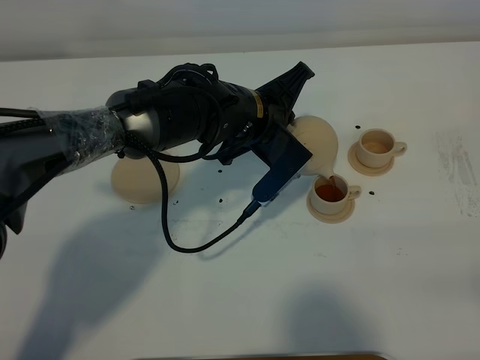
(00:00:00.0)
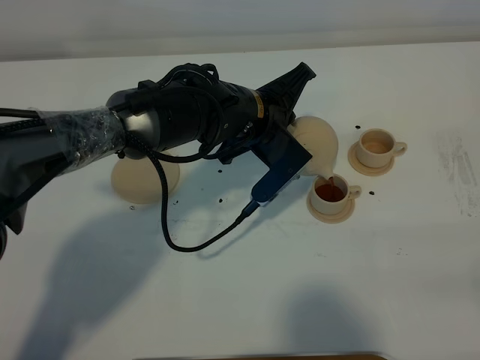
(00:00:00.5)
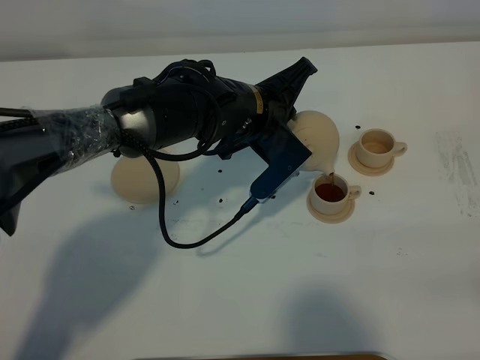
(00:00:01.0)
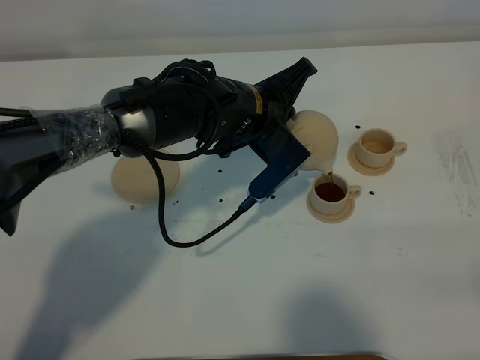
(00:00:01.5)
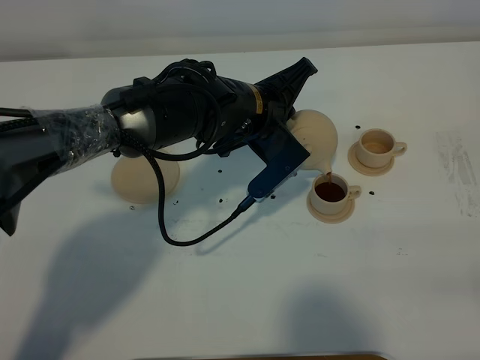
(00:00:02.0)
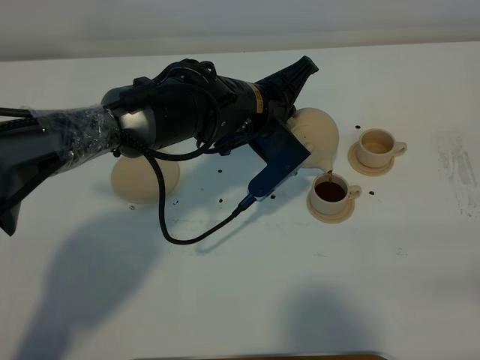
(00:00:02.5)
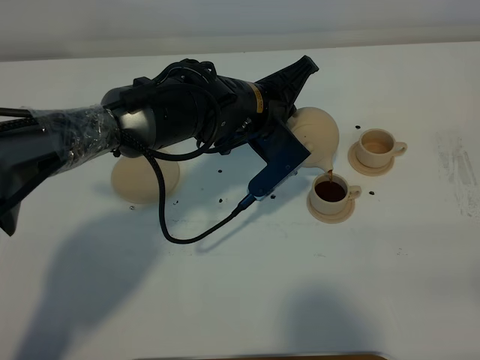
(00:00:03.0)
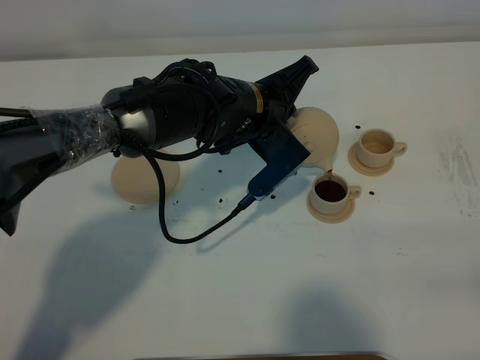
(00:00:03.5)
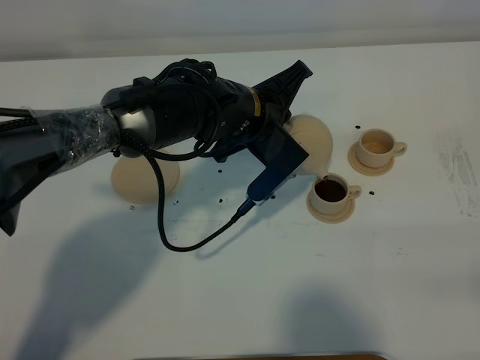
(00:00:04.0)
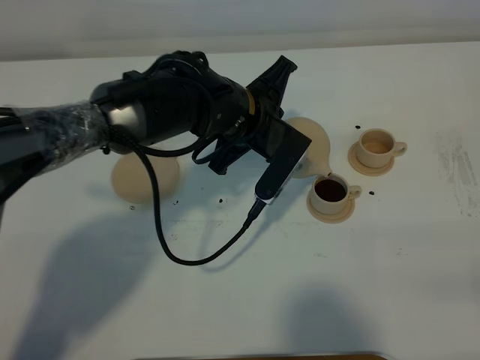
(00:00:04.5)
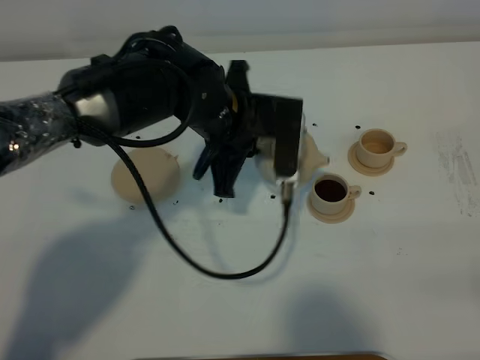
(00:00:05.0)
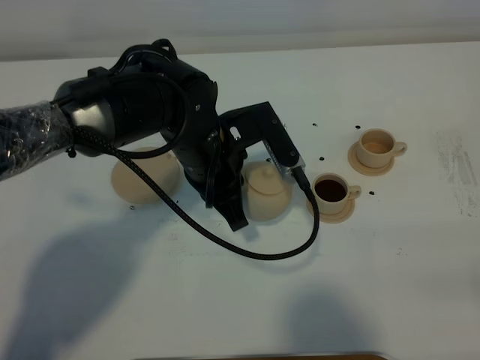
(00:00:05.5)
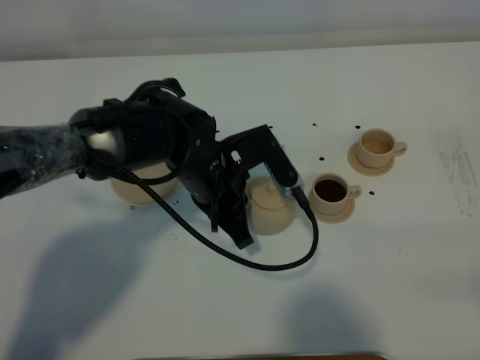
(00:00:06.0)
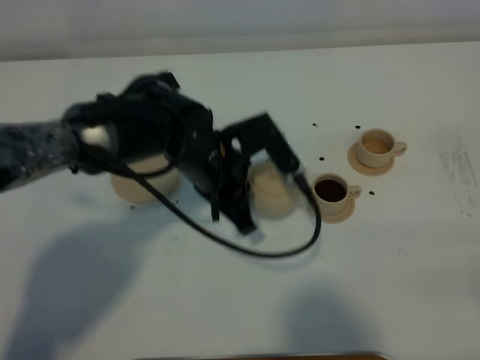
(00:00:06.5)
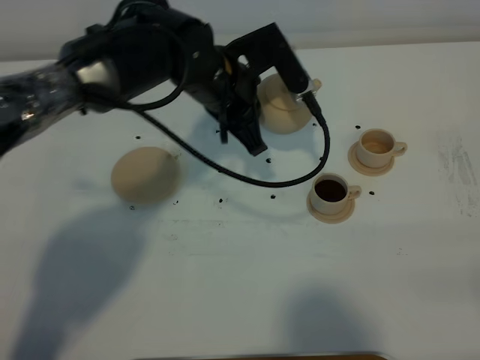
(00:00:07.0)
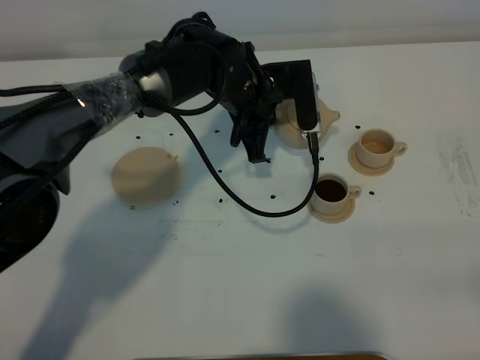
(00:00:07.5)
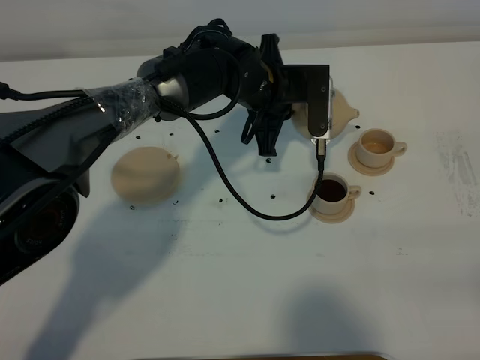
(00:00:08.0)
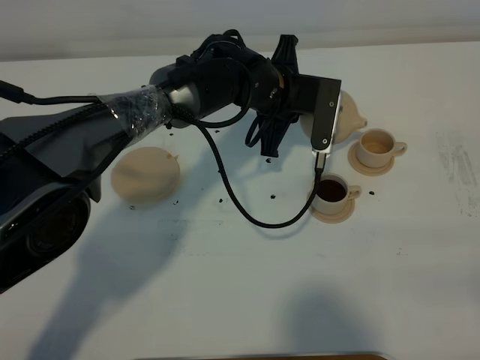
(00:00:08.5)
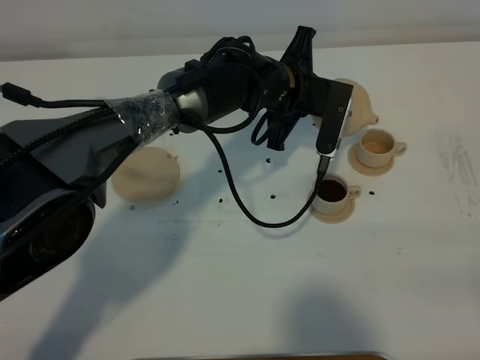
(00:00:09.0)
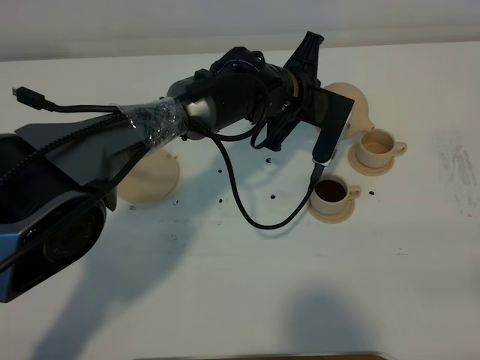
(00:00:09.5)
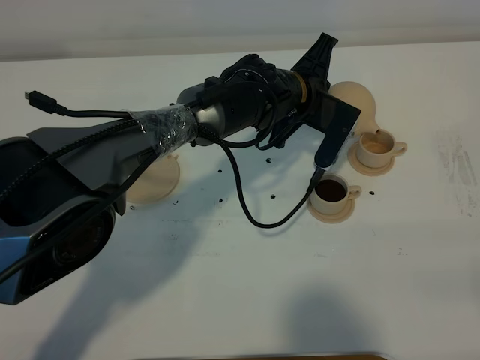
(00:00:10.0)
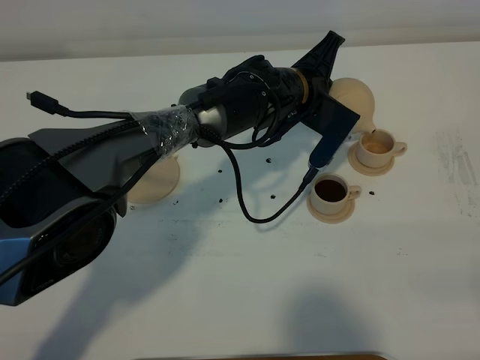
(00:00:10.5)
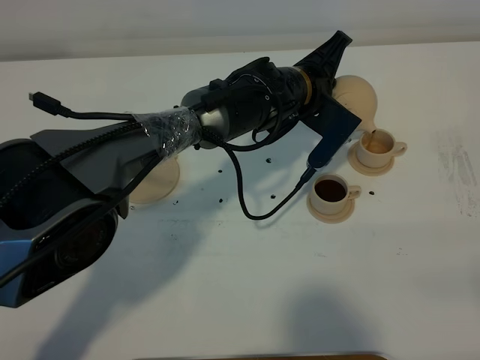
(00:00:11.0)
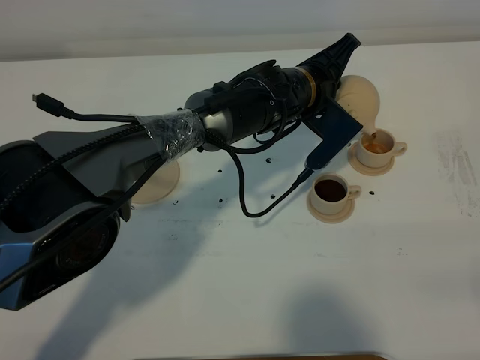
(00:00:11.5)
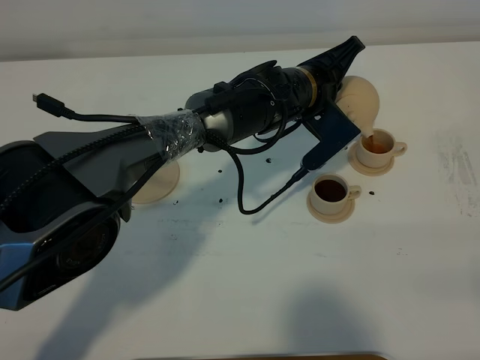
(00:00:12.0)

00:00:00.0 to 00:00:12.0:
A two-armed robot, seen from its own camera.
Task of the whole recording: grasp the brown teapot and pour the tea into the two brown teacups one by one, put the brown teapot back in its original place.
Step, 00:00:00.0 to 00:00:05.0: Pour tea into the teacup with the left gripper.
00:00:00.0 to 00:00:02.0: Neither gripper changes place.
00:00:02.0 to 00:00:04.0: Both grippers stay about where they are.
00:00:04.0 to 00:00:06.0: The left gripper goes about 5 cm backward.
00:00:06.0 to 00:00:08.0: The left gripper goes roughly 15 cm forward and to the right.

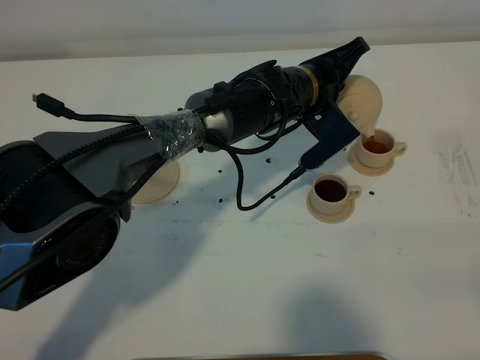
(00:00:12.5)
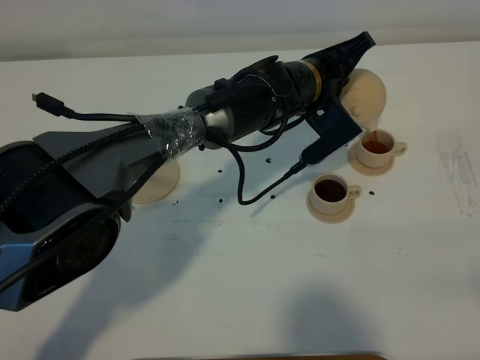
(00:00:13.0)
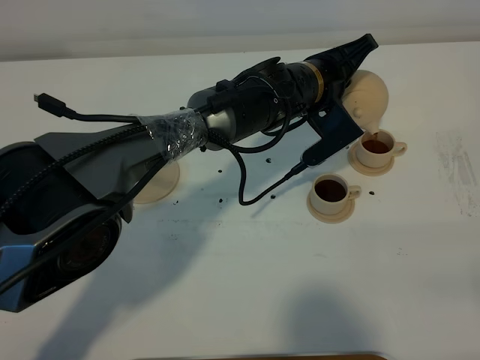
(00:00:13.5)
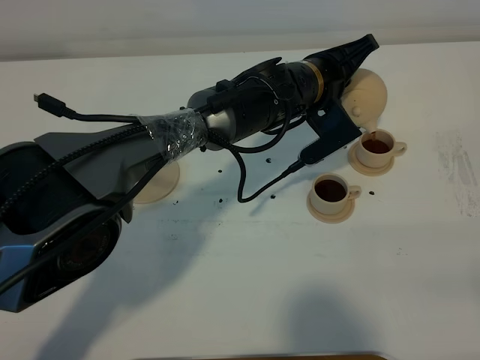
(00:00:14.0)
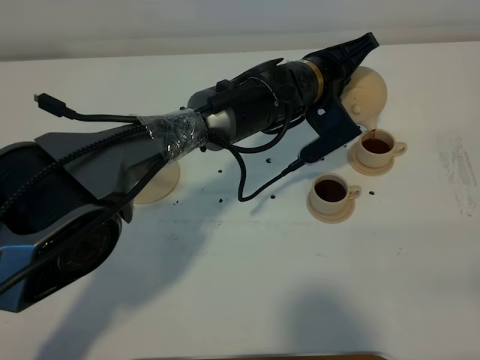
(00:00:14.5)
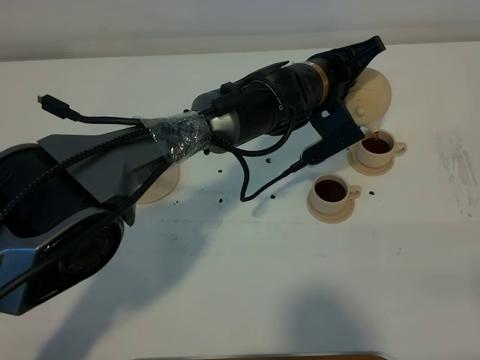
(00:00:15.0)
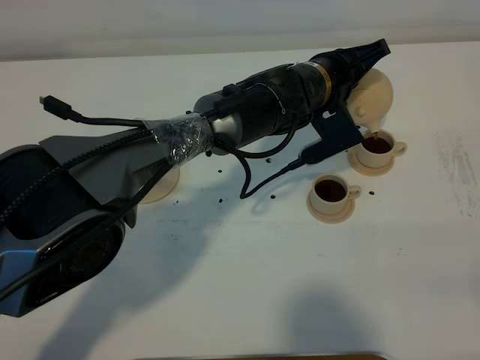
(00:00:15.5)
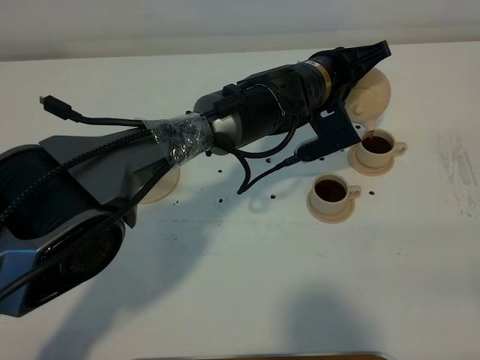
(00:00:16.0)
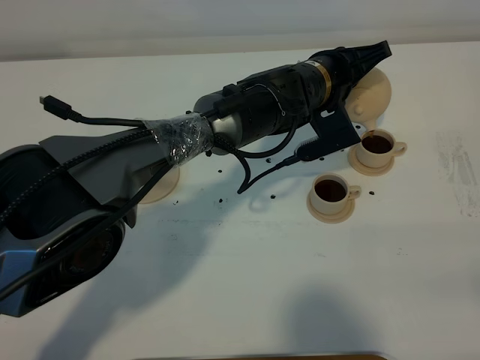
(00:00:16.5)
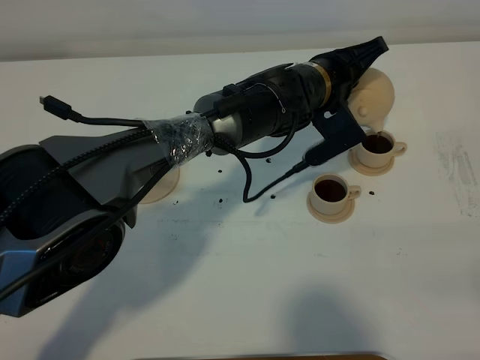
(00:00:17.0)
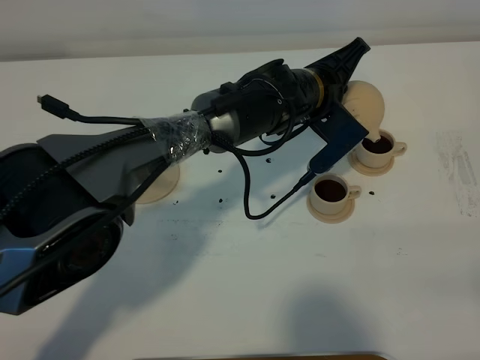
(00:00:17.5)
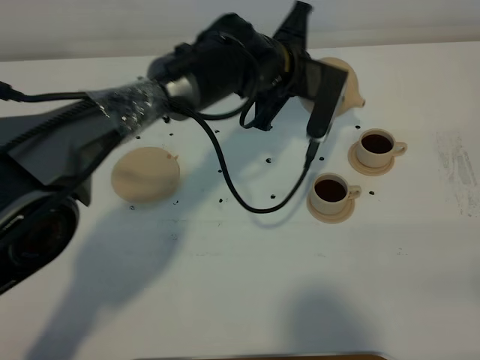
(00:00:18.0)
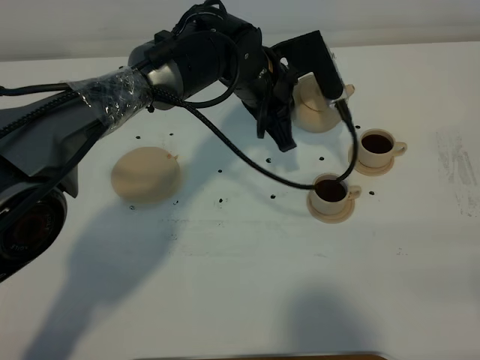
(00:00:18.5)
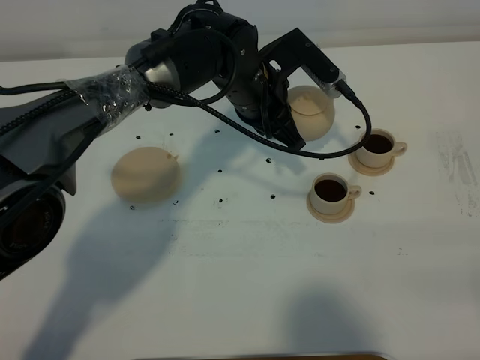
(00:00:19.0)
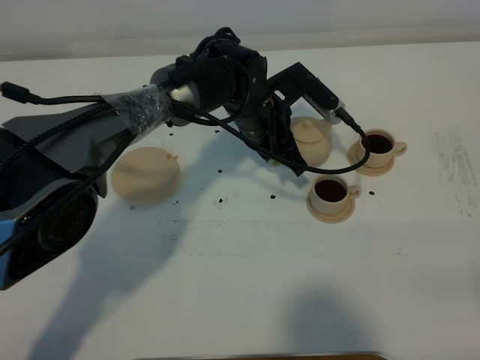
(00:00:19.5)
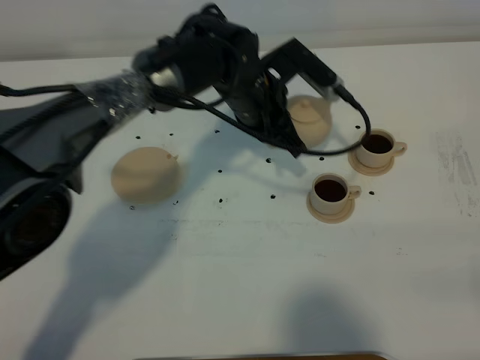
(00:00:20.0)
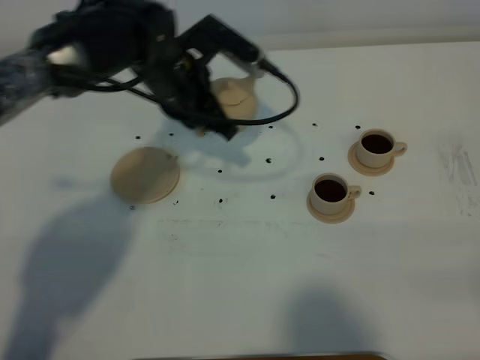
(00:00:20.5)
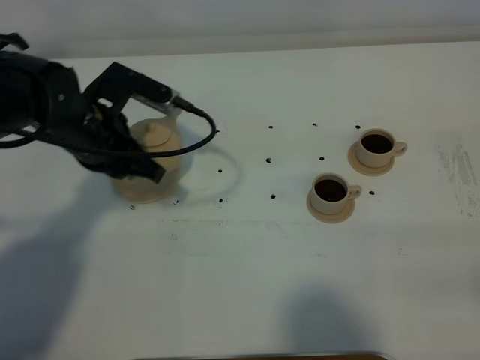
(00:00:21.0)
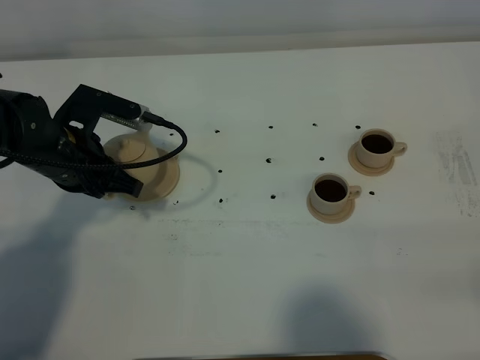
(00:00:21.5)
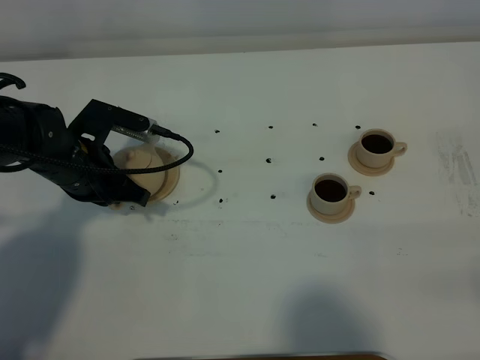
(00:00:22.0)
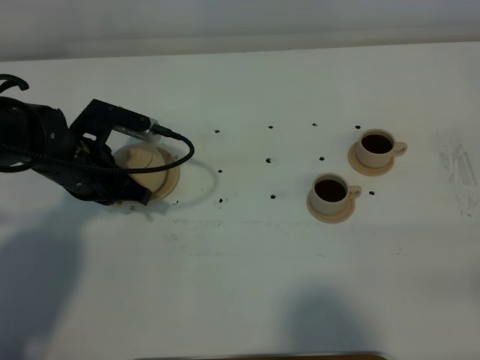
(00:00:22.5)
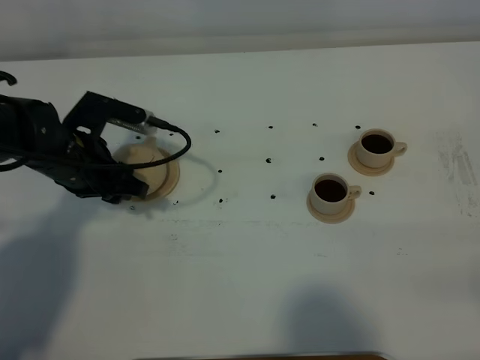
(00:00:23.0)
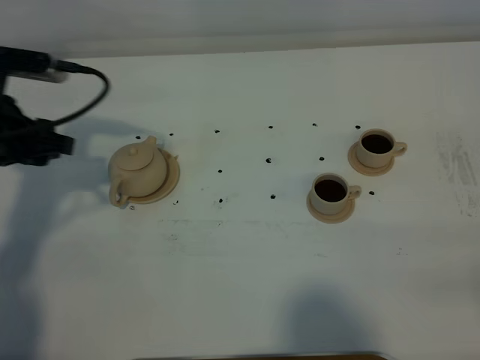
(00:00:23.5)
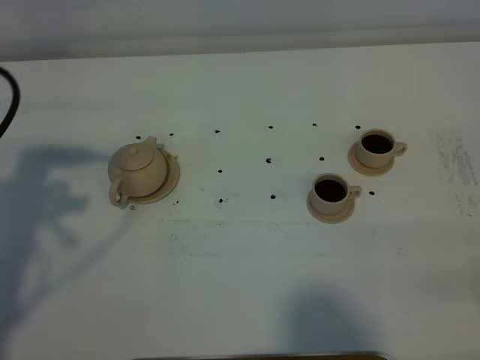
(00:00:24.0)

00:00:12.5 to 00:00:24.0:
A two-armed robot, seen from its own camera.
Task of the whole recording: grasp the brown teapot and pour the tea into the two brown teacups one by one, put the brown teapot back in its original place.
Step, 00:00:12.5 to 00:00:17.5: Pour tea into the teacup with the left gripper.
00:00:12.5 to 00:00:16.5: There are only small adjustments of the grippers.
00:00:16.5 to 00:00:18.5: The left gripper goes approximately 5 cm to the left.
00:00:20.0 to 00:00:22.0: The left gripper travels to the left by approximately 20 cm.
00:00:22.0 to 00:00:24.0: The left gripper shifts some 20 cm upward, backward and to the left, and opens its fingers.

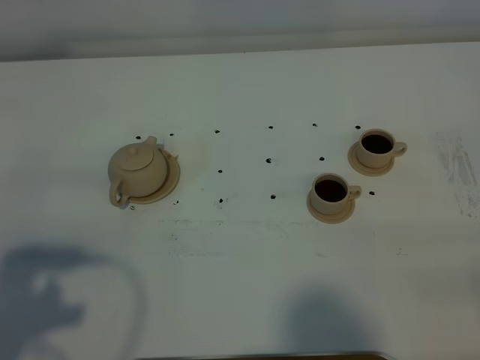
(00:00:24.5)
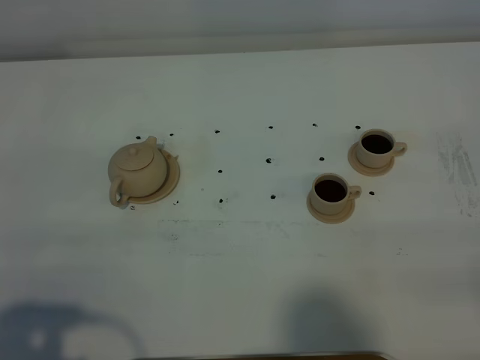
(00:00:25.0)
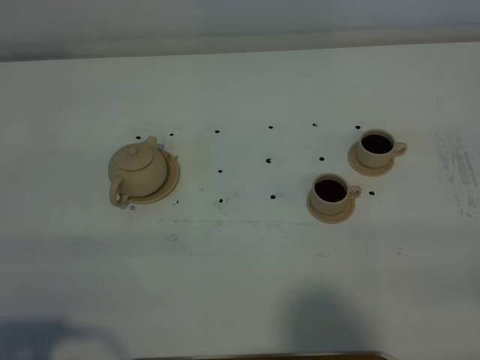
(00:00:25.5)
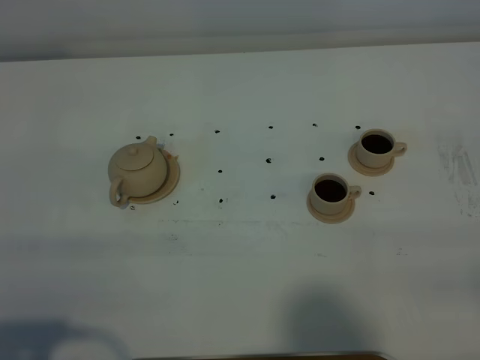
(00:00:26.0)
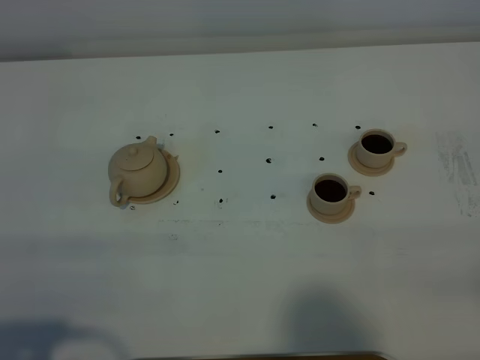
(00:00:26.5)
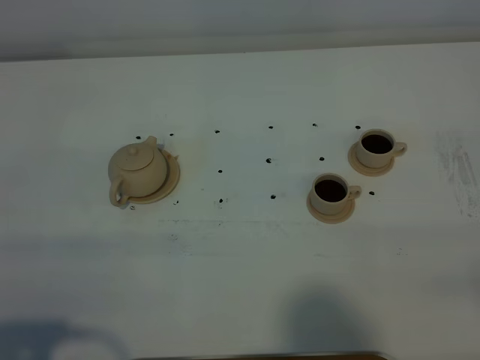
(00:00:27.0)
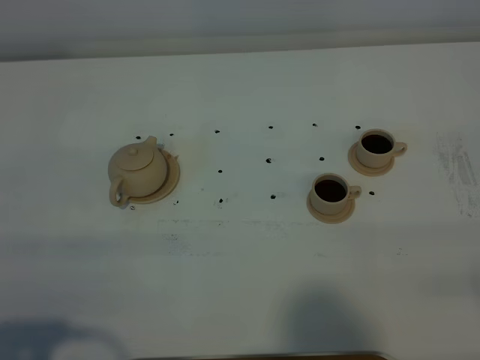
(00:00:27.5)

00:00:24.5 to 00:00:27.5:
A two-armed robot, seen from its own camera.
Task of the whole recording: grasp the brown teapot and pour the tea into the two brown teacups one by one, put the brown teapot back in its original place.
00:00:24.5 to 00:00:26.0: The left gripper goes about 5 cm backward.
00:00:26.0 to 00:00:27.5: Neither gripper changes place.
